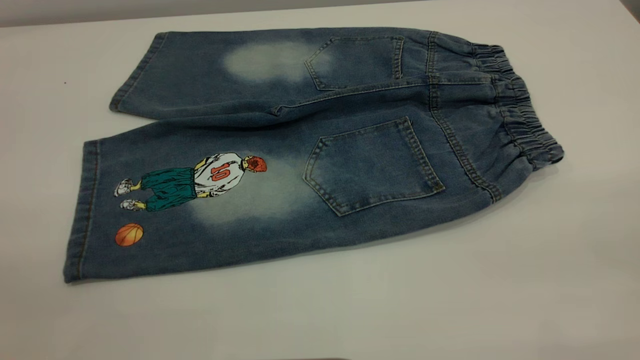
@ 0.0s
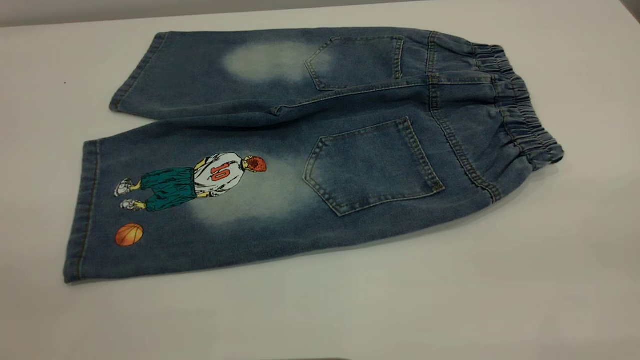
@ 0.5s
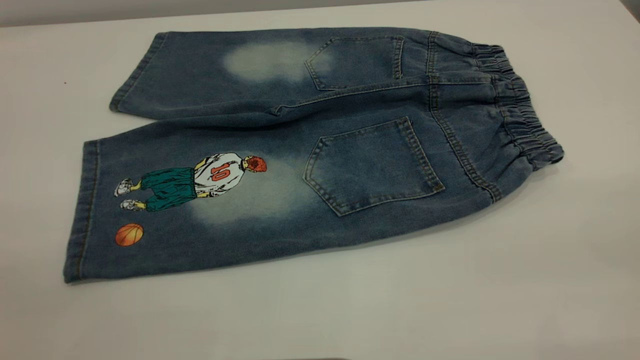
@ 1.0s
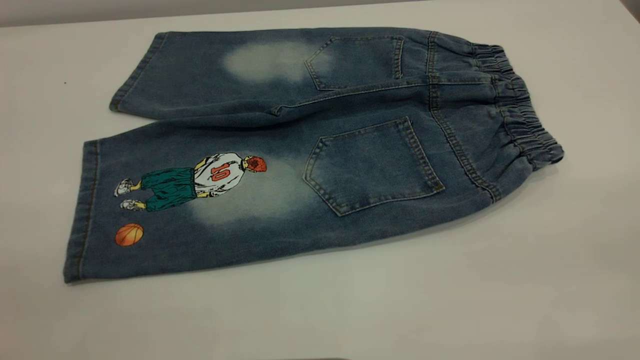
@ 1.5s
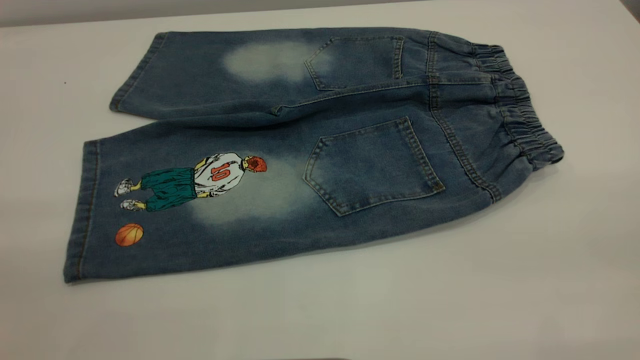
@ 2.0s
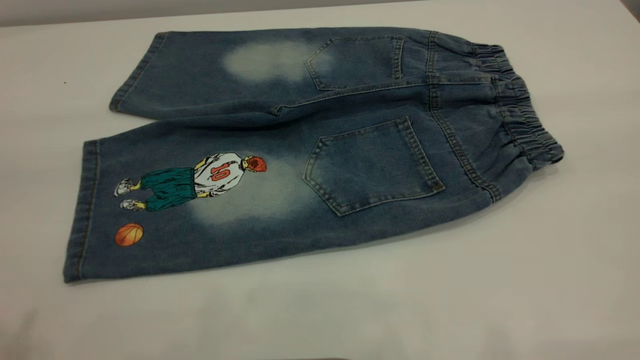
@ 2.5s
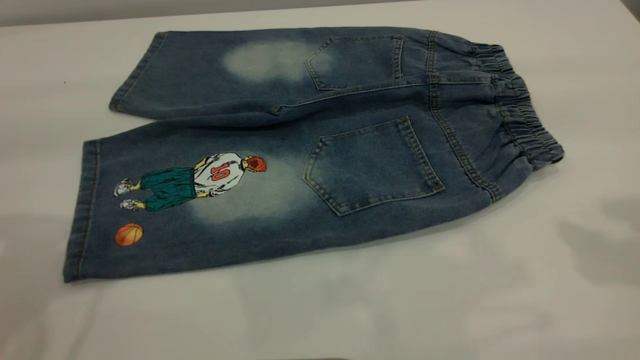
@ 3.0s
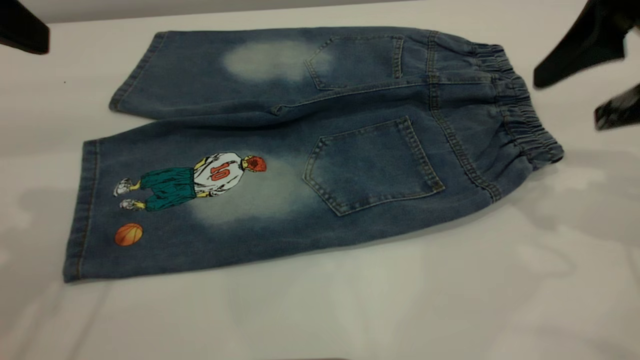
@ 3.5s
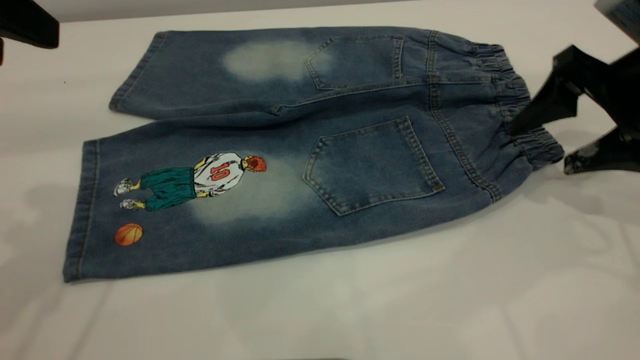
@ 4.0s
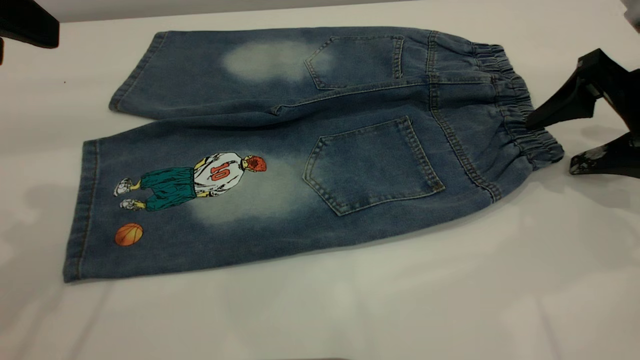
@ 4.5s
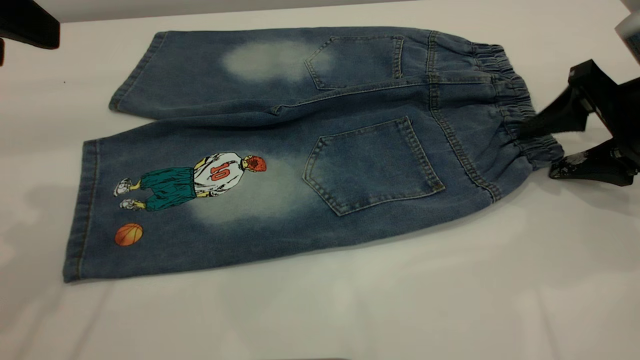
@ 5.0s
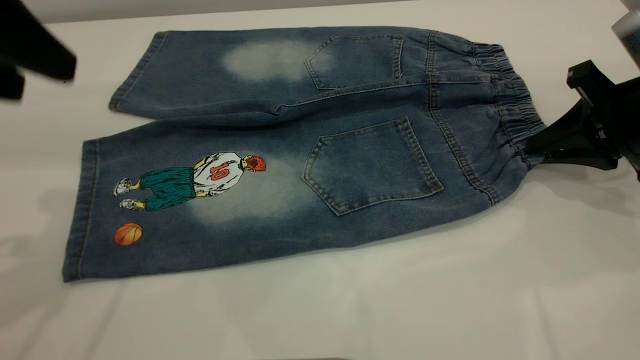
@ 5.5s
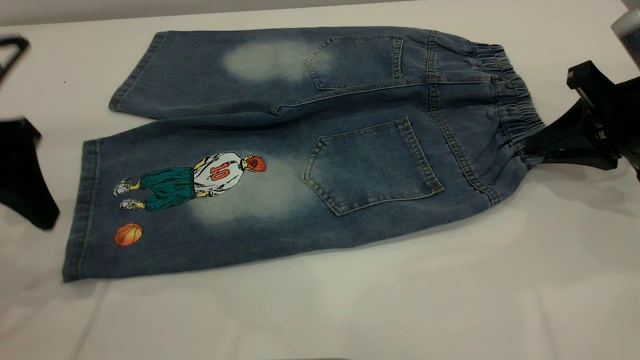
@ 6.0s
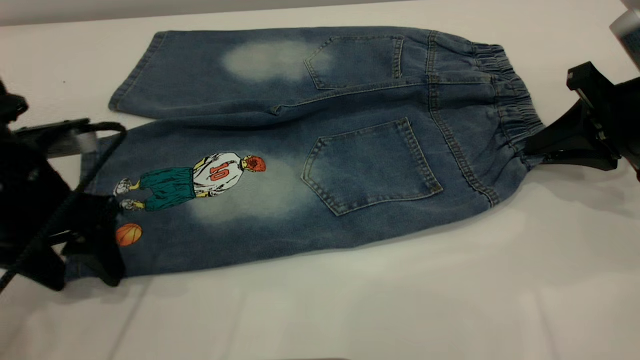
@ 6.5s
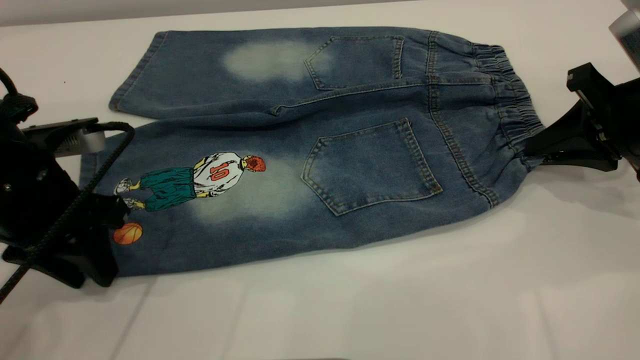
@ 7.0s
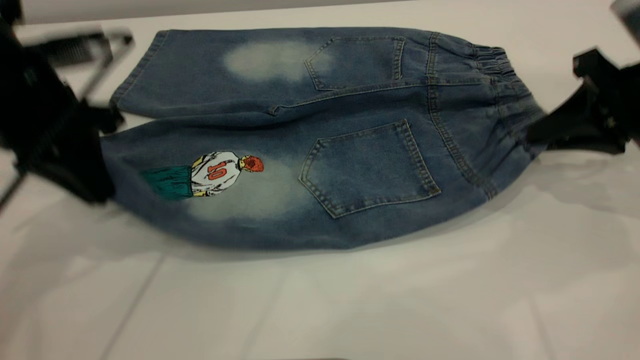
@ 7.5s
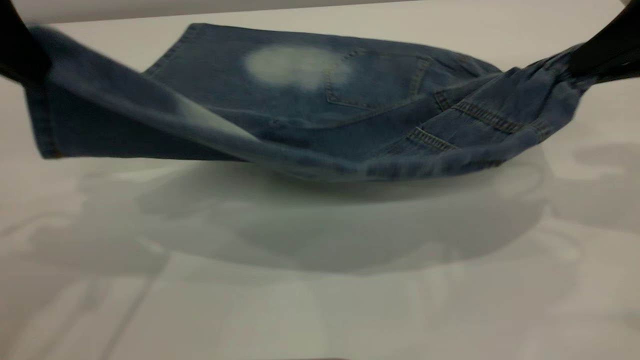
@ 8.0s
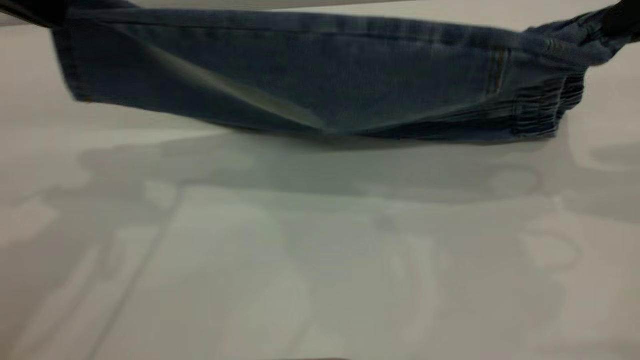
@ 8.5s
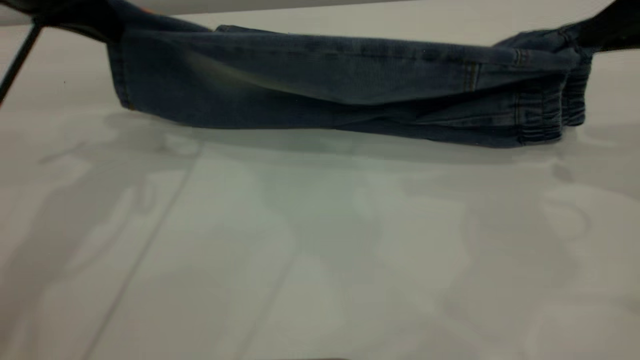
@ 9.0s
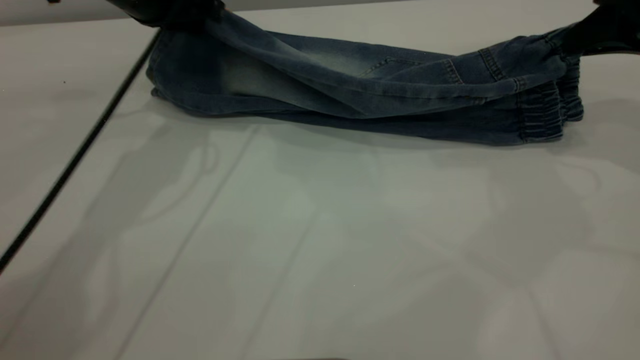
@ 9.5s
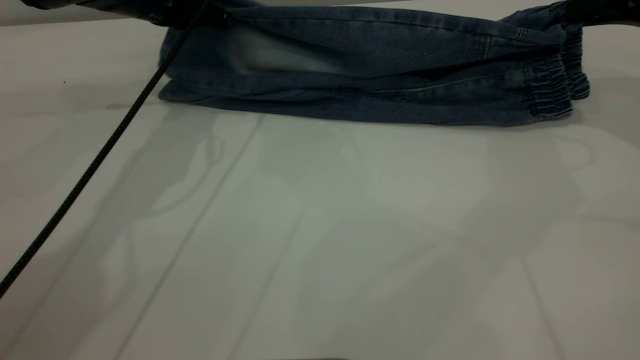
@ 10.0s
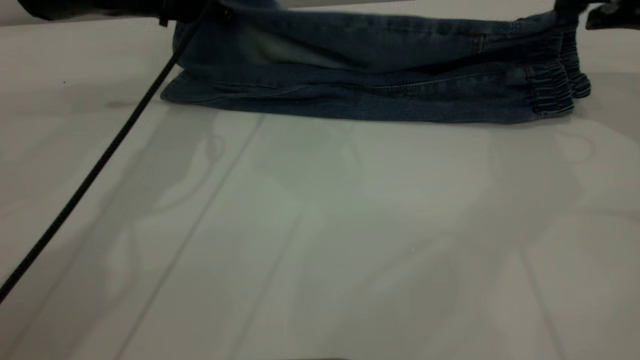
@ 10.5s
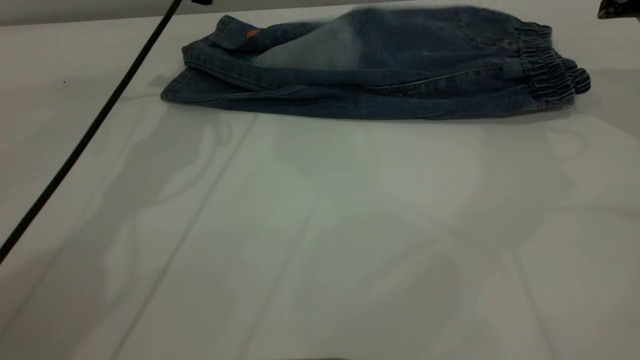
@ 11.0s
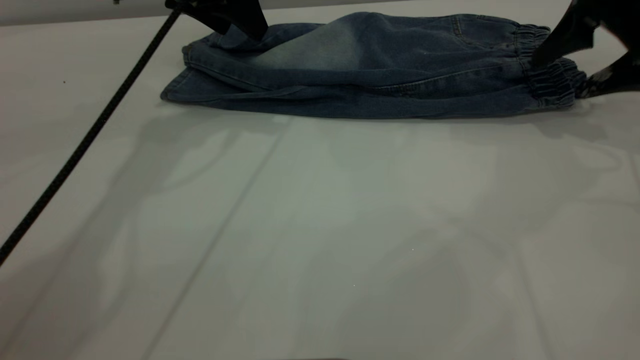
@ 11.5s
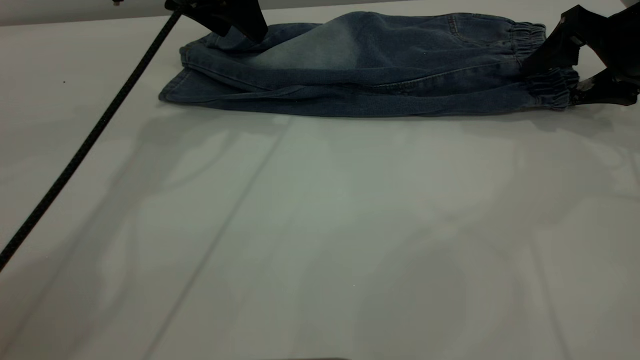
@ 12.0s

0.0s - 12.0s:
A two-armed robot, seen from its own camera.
Step, 0.0s - 11.0s: Fold the bottom of the pants upward.
2.0s - 4.0s: The left gripper travels forward by about 25 cm. Meanwhile the right gripper shifts approximately 35 cm forward and downward.
4.0s - 6.0s: The right gripper closes up. Meanwhile the left gripper travels downward by approximately 10 cm.
6.0s - 8.0s: Both grippers travel together upward, roughly 15 cm. The left gripper closes its fingers.
8.0s - 10.0s: The right gripper moves forward, roughly 10 cm, while the left gripper travels forward and downward by about 25 cm.
10.0s - 12.0s: The right gripper shifts approximately 5 cm downward, and opens, while the left gripper ends up roughly 5 cm from where it was, and opens up.

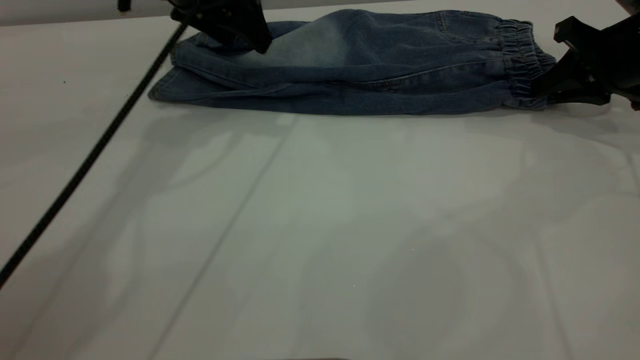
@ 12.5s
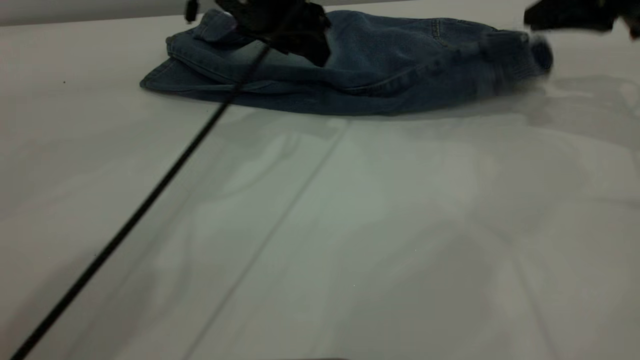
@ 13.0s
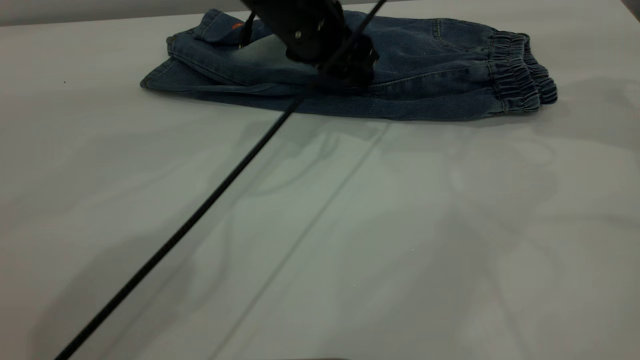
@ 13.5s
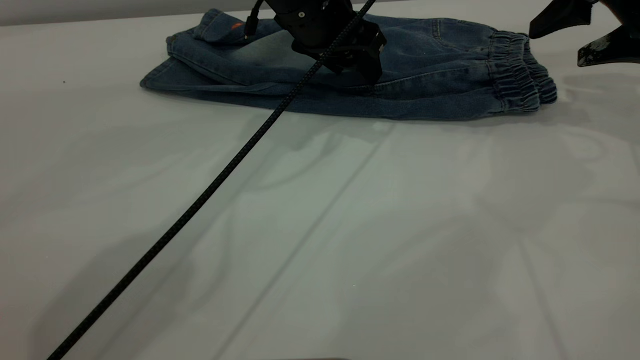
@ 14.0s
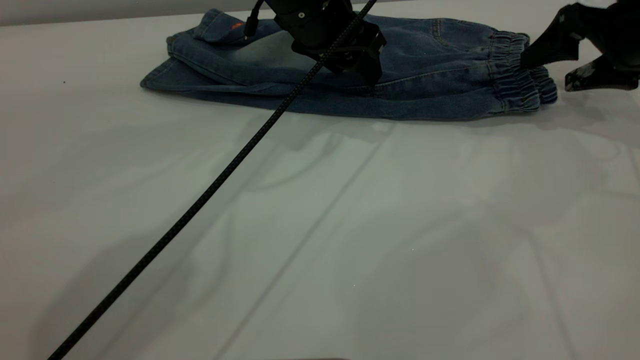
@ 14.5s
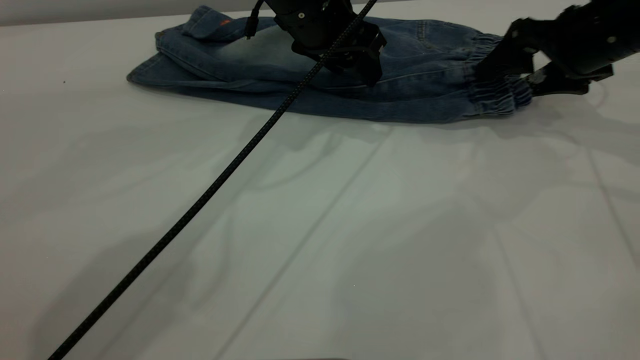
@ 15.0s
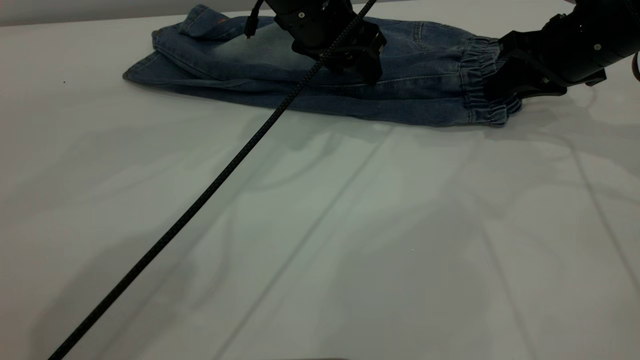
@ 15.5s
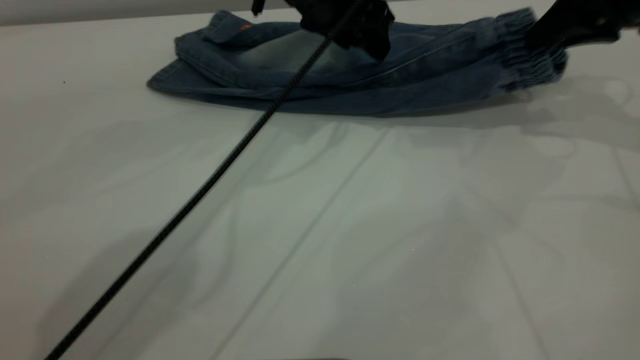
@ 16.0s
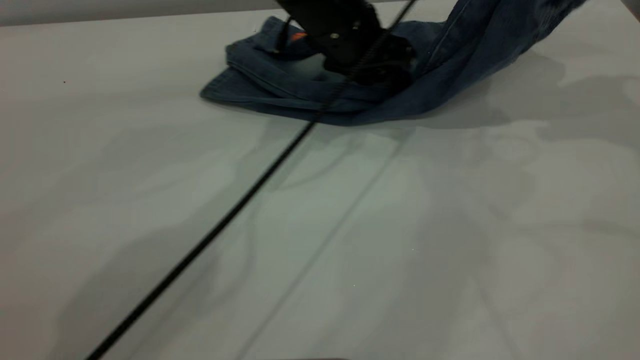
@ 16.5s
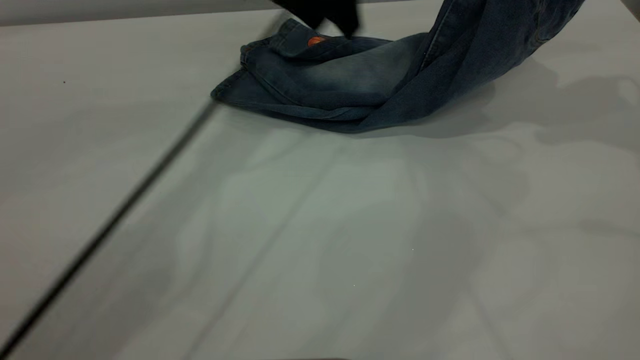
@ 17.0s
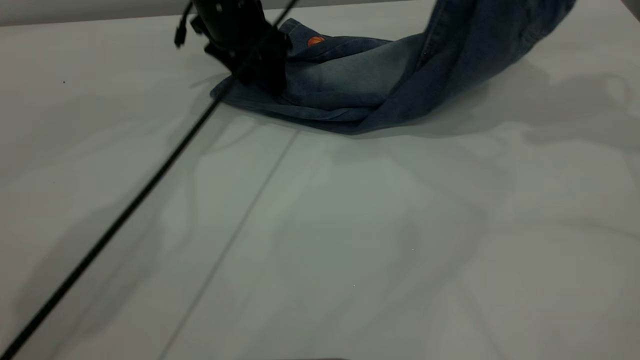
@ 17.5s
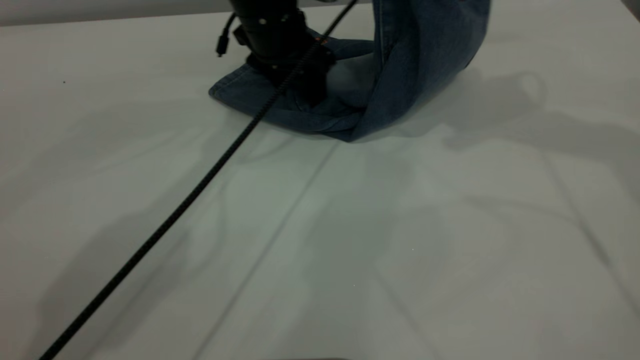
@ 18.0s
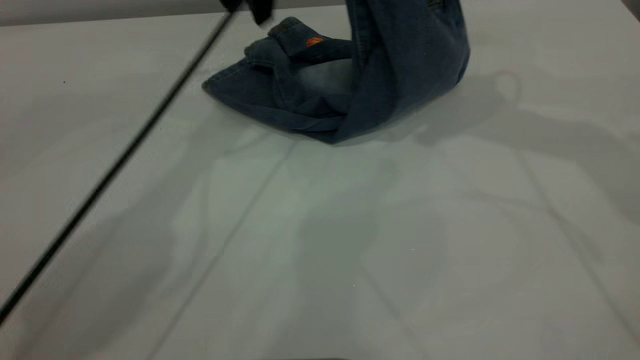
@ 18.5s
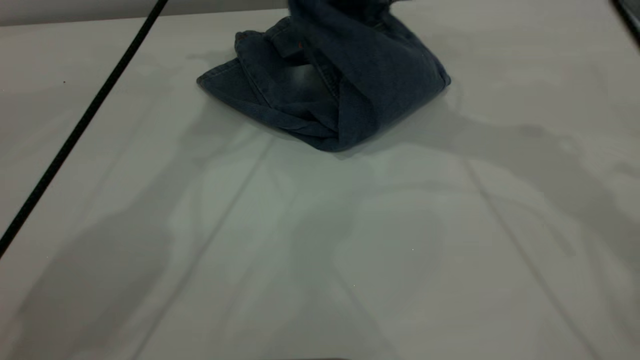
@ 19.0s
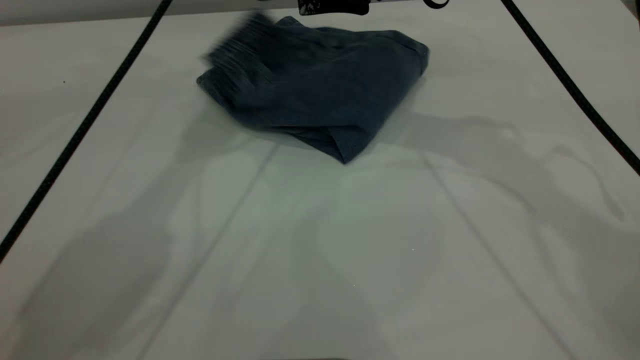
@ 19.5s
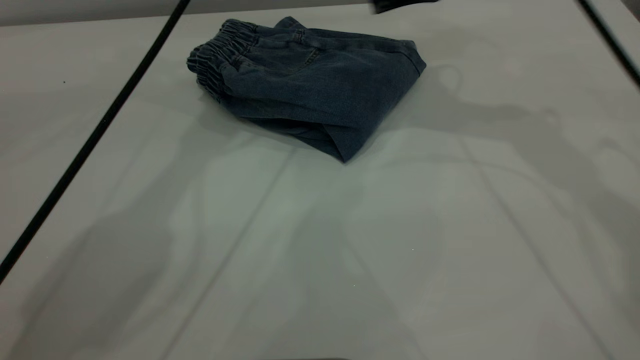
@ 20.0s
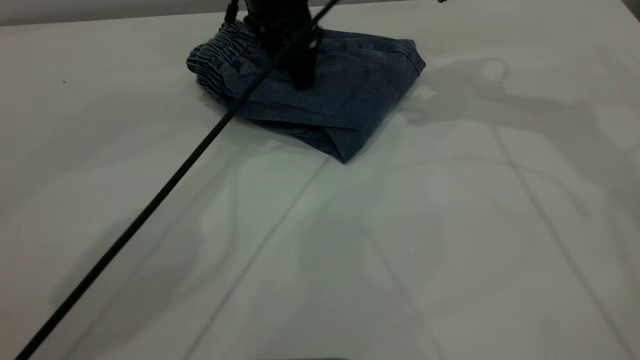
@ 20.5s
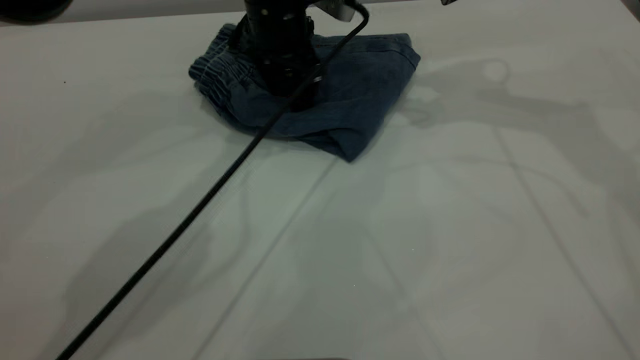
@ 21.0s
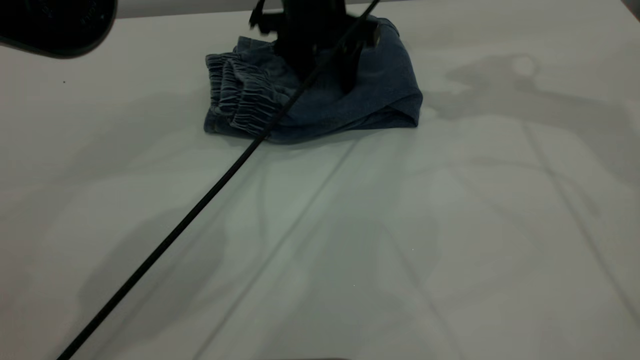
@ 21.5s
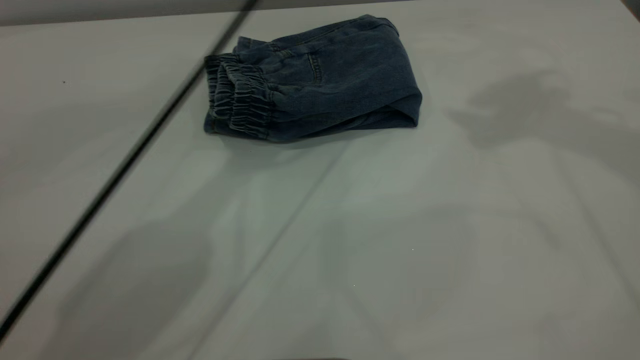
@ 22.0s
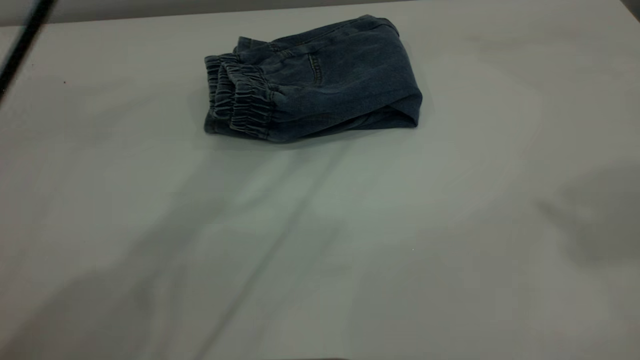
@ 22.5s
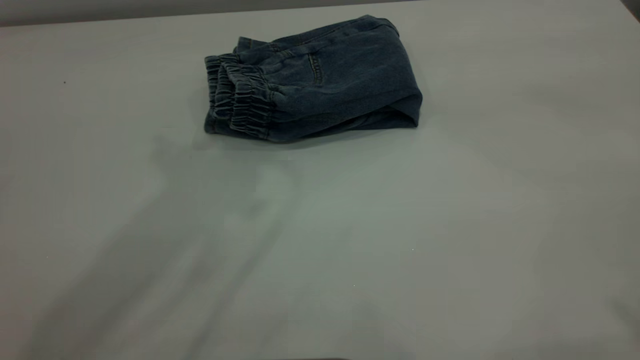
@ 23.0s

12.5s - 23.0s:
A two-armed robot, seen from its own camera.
Step, 12.5s - 19.5s: Fold your pants from right to left.
12.5s - 14.5s: The right gripper moves about 10 cm upward and comes back, and opens up. Meanwhile the left gripper moves to the right, some 10 cm.
14.5s - 16.5s: The right gripper shifts roughly 15 cm upward, and closes its fingers.
16.5s - 19.0s: The right gripper moves to the left, some 20 cm. Meanwhile the left gripper swings up and down, some 15 cm each way, with 2 reversals.
19.0s - 21.0s: The right gripper moves to the right, about 5 cm, and opens; the left gripper shifts some 20 cm downward.
21.0s - 23.0s: The right gripper shifts roughly 40 cm backward and upward. Meanwhile the left gripper heads upward and backward, covering approximately 40 cm.
